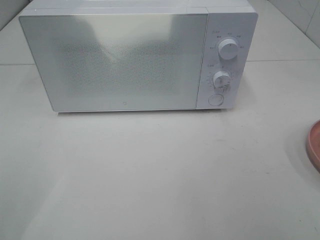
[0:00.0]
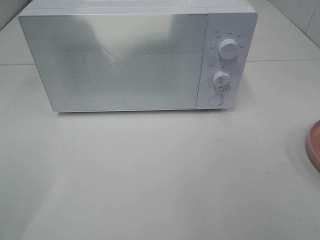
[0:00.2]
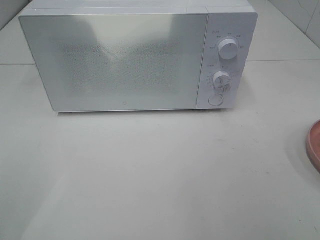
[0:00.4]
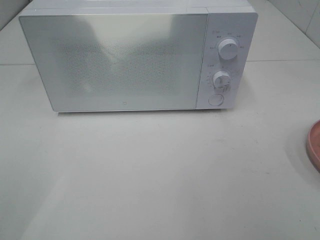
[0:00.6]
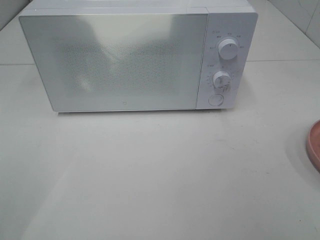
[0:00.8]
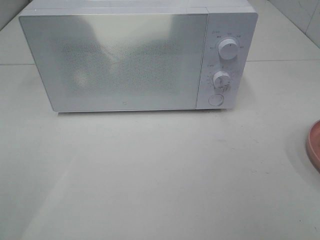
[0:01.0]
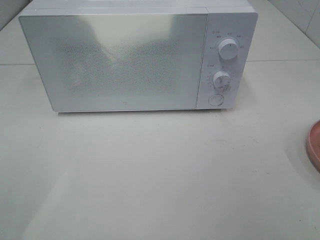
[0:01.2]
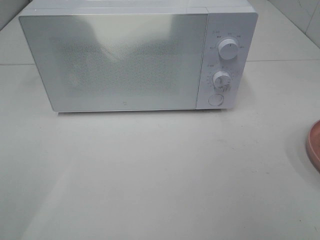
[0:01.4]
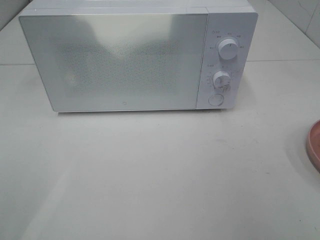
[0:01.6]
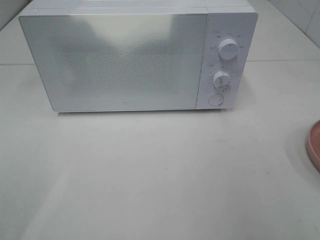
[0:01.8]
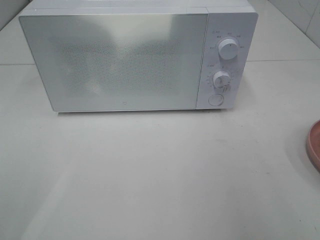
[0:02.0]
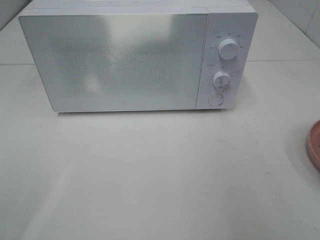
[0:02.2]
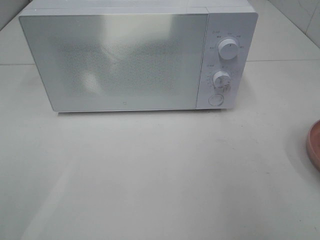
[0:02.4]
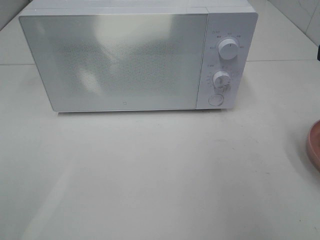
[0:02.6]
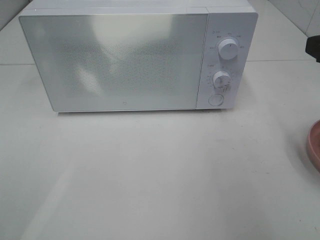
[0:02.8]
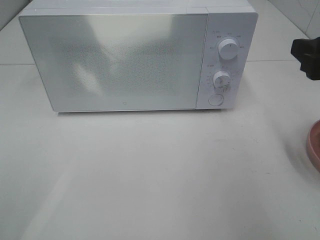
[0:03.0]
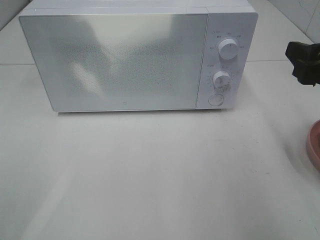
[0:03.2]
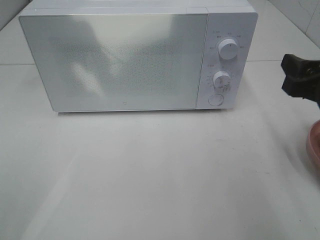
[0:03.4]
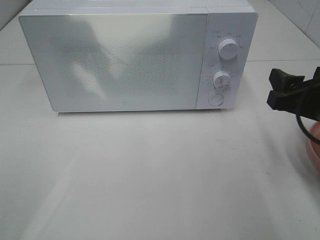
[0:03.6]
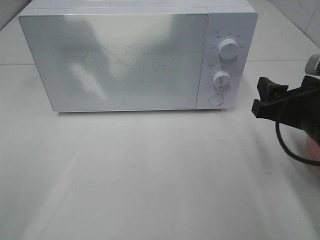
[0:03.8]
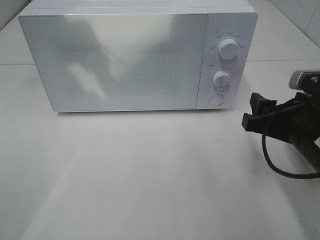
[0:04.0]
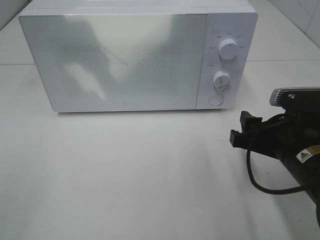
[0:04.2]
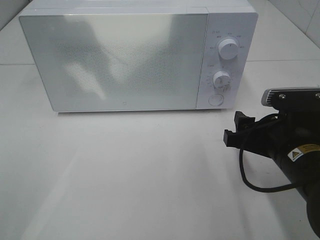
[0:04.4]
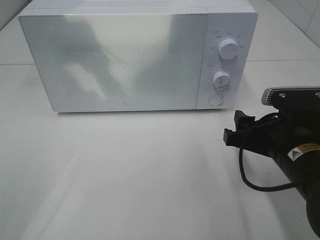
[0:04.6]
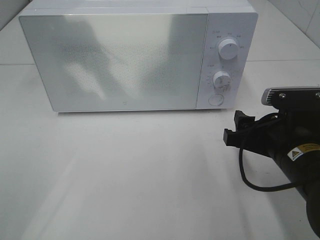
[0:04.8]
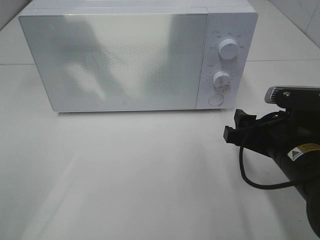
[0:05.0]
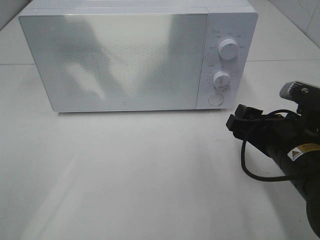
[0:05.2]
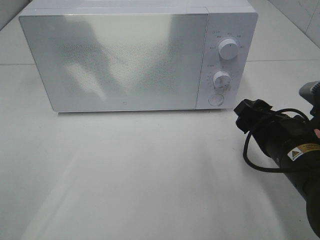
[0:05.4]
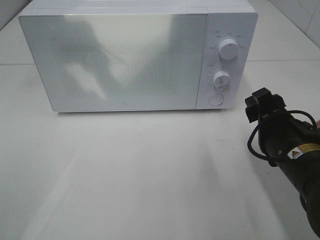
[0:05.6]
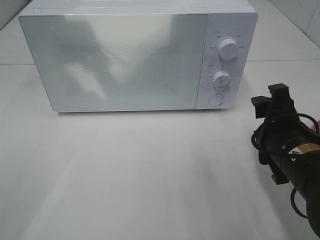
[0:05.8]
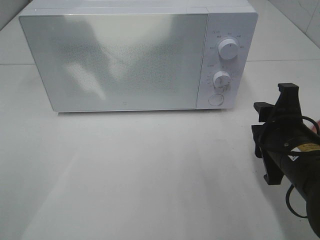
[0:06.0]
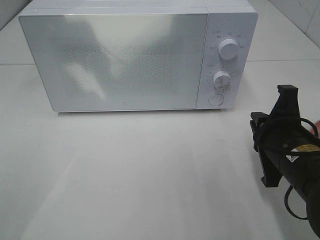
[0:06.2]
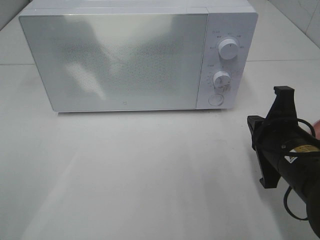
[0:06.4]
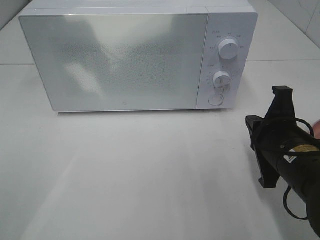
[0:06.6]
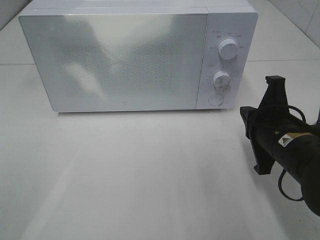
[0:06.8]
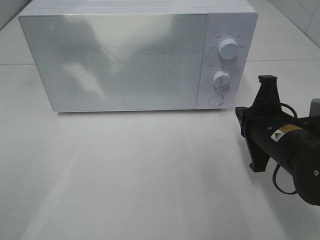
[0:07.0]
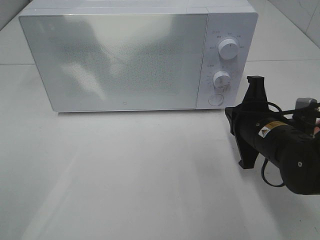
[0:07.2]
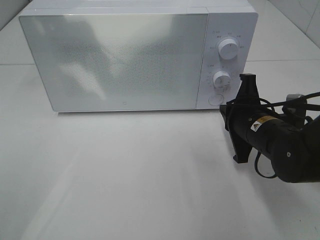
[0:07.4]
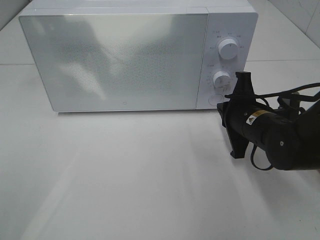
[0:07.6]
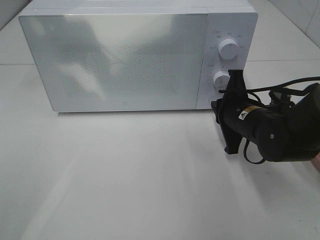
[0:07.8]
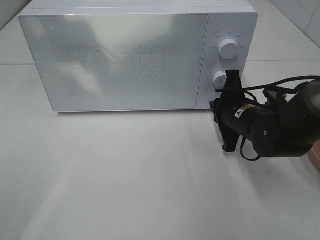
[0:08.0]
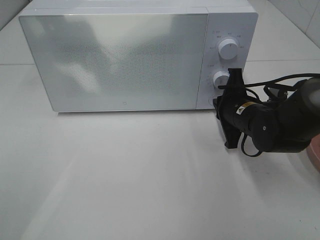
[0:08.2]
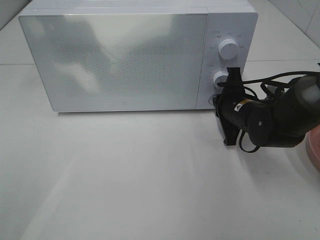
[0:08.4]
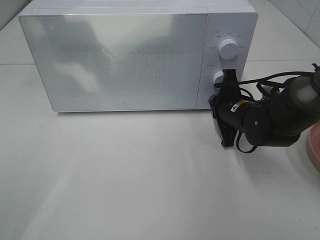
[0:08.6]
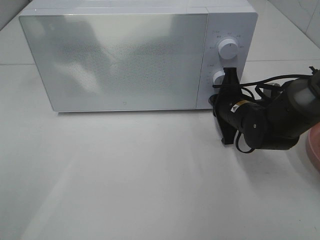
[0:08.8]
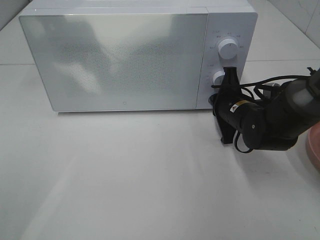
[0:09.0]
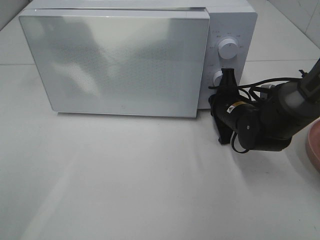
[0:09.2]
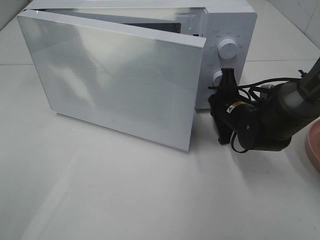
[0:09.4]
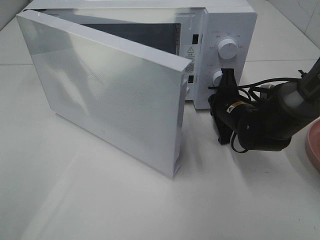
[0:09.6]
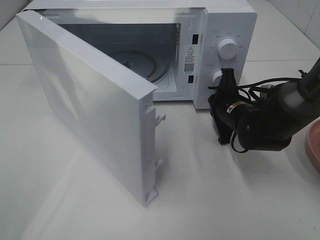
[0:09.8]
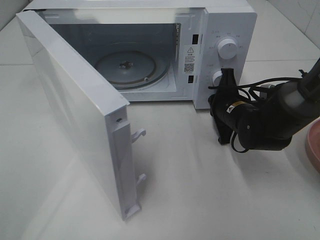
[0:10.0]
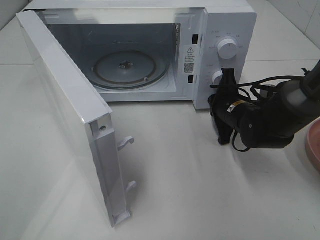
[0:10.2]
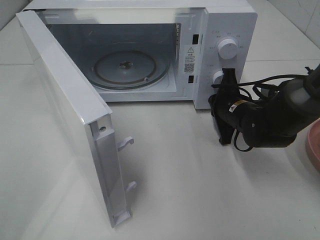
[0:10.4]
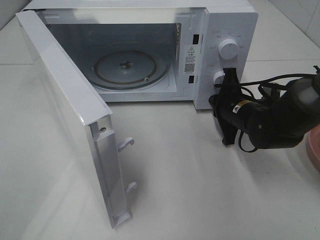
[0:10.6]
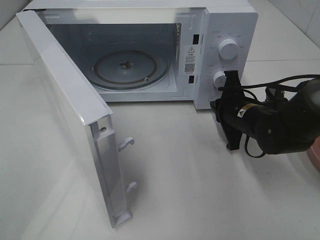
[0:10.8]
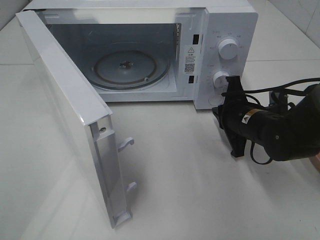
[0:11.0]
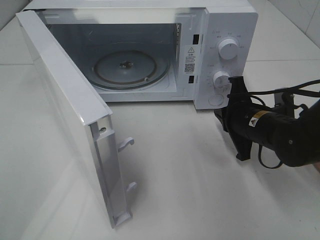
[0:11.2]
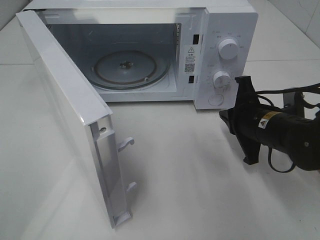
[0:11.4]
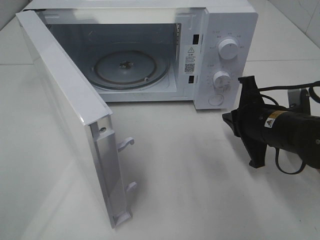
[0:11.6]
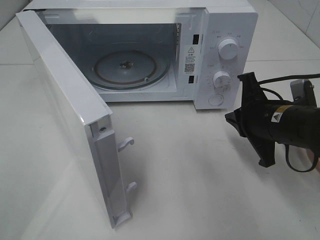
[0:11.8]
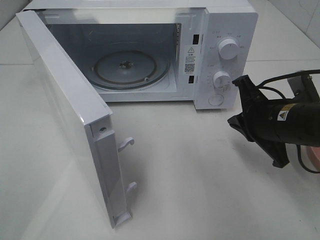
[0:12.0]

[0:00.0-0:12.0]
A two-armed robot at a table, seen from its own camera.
Task of the whole recording: Heat Sandwich.
Step, 0:00.0 to 0:10.8: Right hand: press the switch.
0:01.6 to 0:03.0: The right gripper moves forward, roughly 15 cm.
0:03.0 to 0:04.4: The right gripper heads downward and to the left, covering approximately 15 cm.
0:06.0 to 0:07.6: The right gripper moves forward, some 10 cm, and closes up.
0:07.6 to 0:09.0: The right gripper is displaced forward by about 5 cm.
0:10.4 to 0:12.0: The right gripper moves backward and upward, about 10 cm.

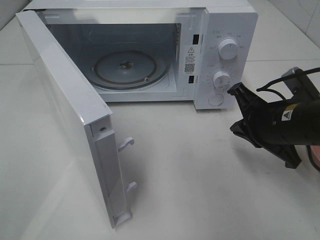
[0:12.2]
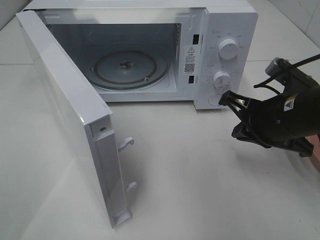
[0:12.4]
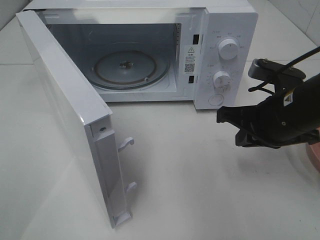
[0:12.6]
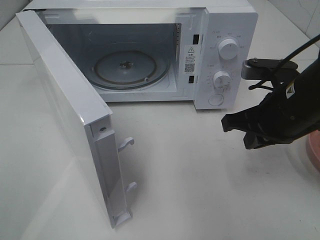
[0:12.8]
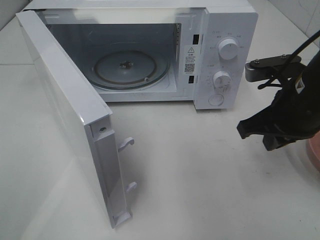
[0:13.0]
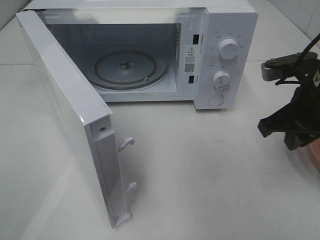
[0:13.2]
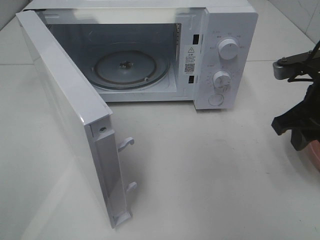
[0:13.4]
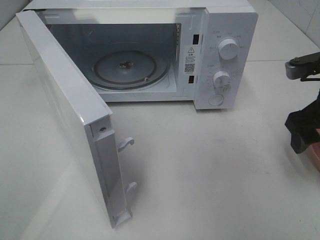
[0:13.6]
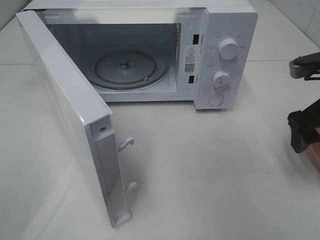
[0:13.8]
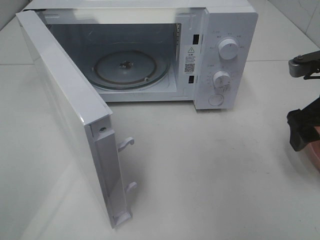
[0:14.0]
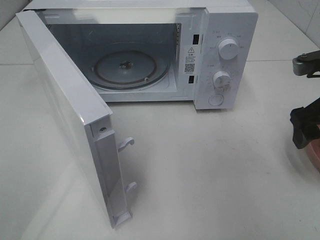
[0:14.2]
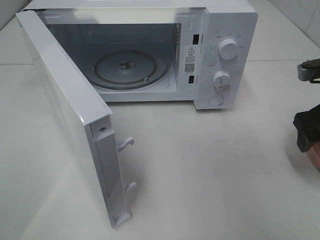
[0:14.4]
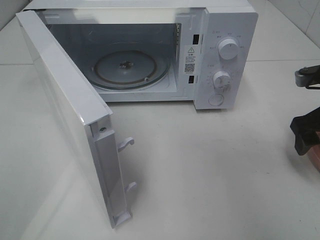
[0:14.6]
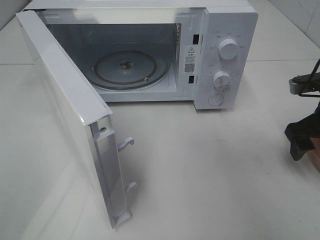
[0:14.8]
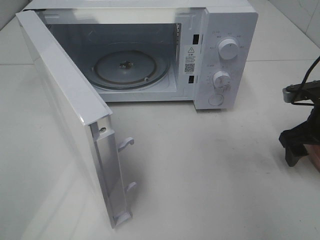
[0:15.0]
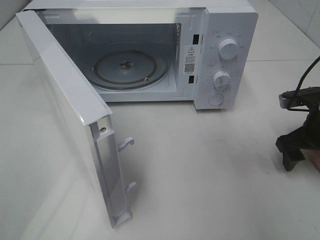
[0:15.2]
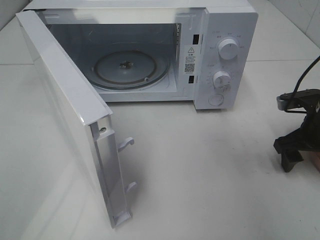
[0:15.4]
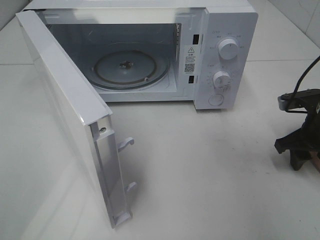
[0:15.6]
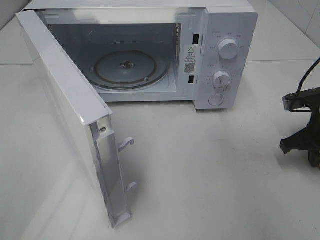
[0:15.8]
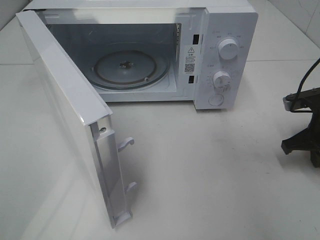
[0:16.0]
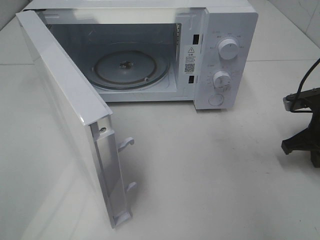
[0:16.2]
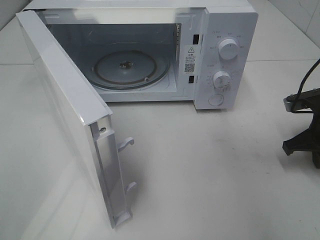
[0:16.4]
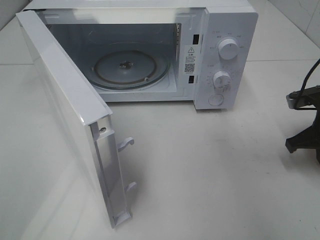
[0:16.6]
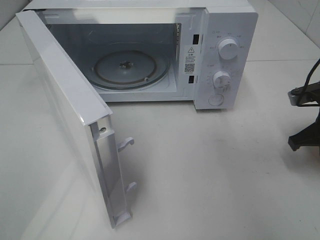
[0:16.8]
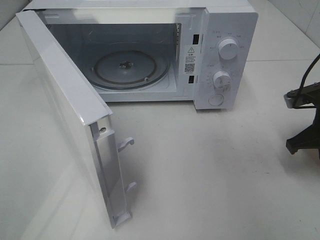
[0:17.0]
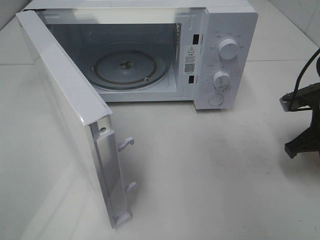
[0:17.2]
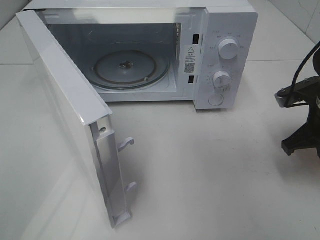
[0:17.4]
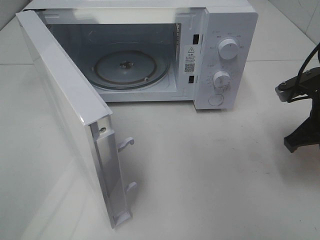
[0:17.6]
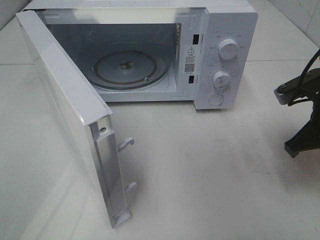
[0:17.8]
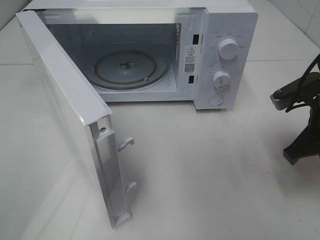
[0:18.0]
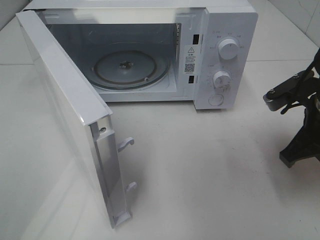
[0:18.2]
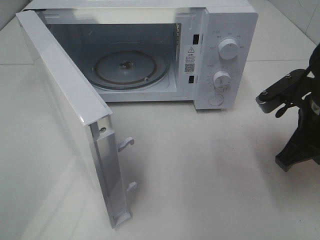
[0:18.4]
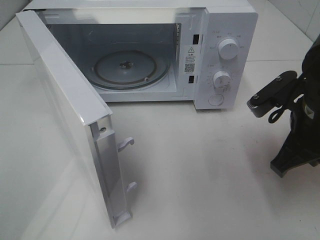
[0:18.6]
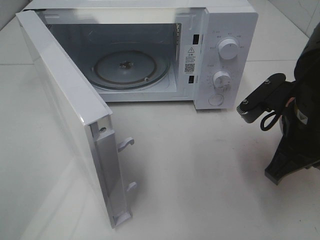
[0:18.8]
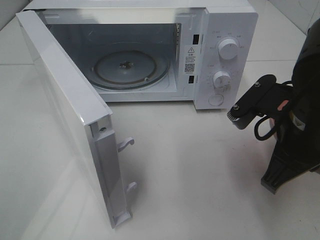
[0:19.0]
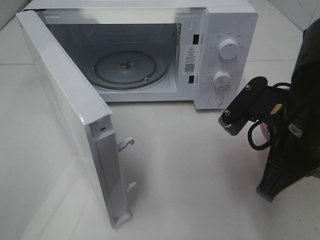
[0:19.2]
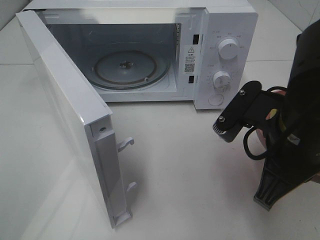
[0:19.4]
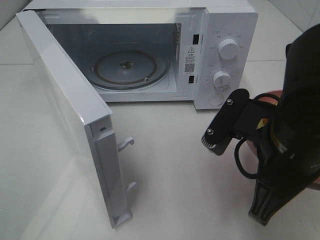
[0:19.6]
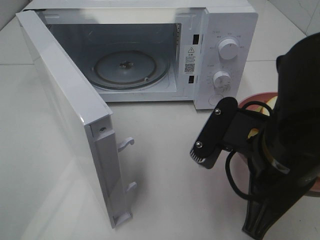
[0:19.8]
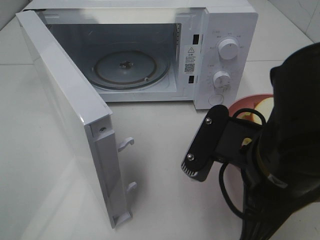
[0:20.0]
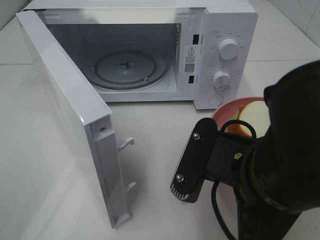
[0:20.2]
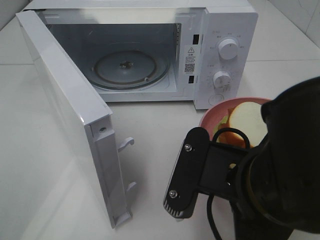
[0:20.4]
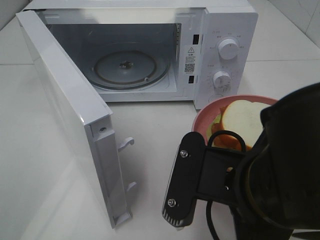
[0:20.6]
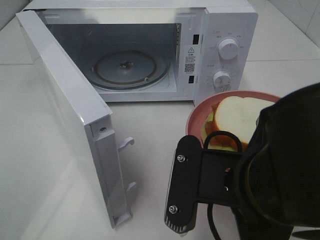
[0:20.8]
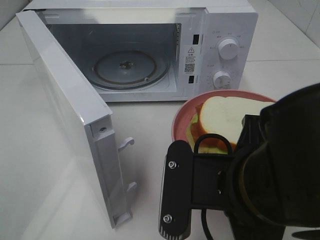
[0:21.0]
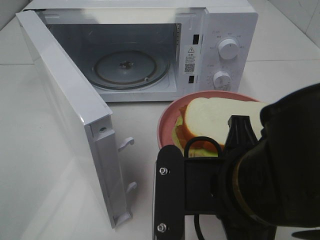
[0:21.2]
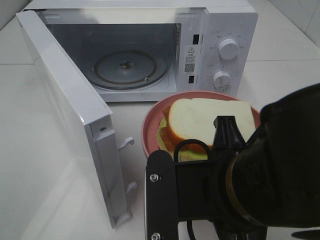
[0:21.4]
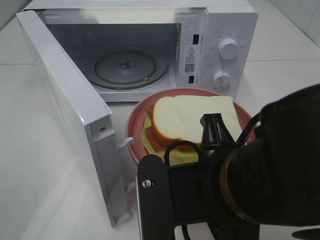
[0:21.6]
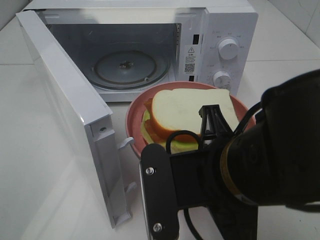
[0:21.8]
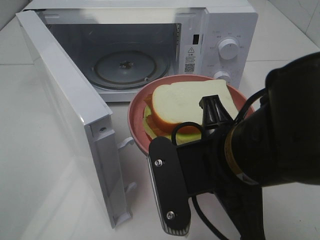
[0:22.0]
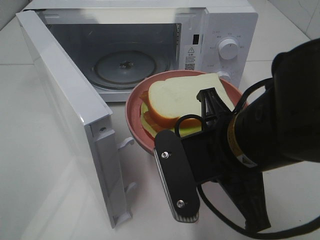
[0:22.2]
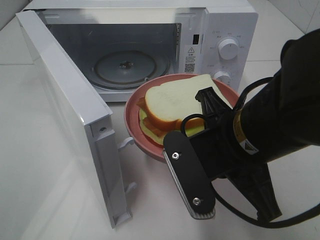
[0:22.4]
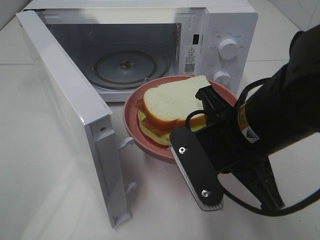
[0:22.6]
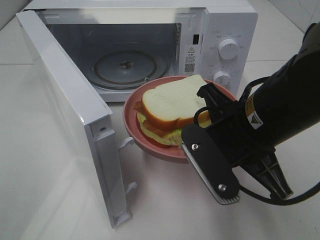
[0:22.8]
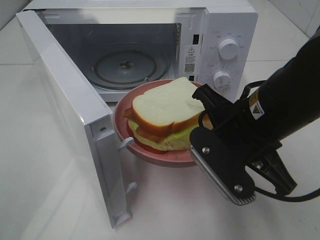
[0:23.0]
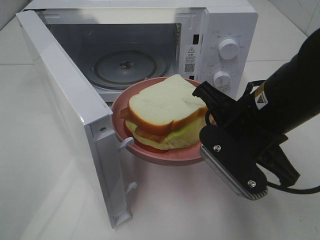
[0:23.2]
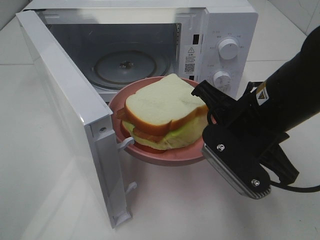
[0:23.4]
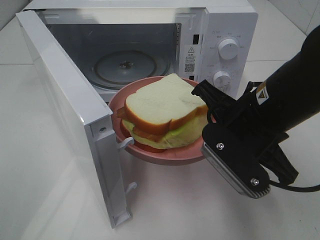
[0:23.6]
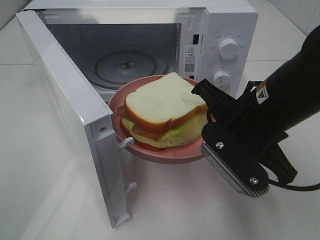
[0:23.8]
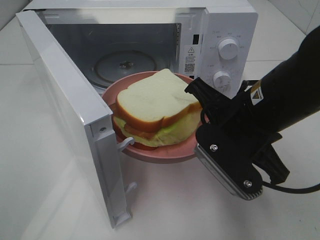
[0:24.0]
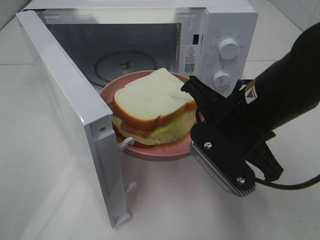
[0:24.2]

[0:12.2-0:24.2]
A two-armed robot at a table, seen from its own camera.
Task of the whole recording: Heat Sandwich.
Step, 0:12.2 to 0:16.4: Right hand: grab the plate with the sandwich.
0:12.2 to 0:13.8: The right gripper travels to the right and upward by about 10 cm, and opens up.
0:13.8 to 0:15.2: The right gripper heads downward, covering about 10 cm.
0:15.2 to 0:16.6: The right gripper closes its fingers.
0:16.6 to 0:18.2: The right gripper shifts some 10 cm to the left, upward and backward.
0:18.2 to 0:19.8: The right gripper heads to the left and backward, covering some 15 cm.
0:19.8 to 0:21.2: The right gripper moves approximately 5 cm.
0:21.2 to 0:22.6: The right gripper moves forward, about 10 cm.
